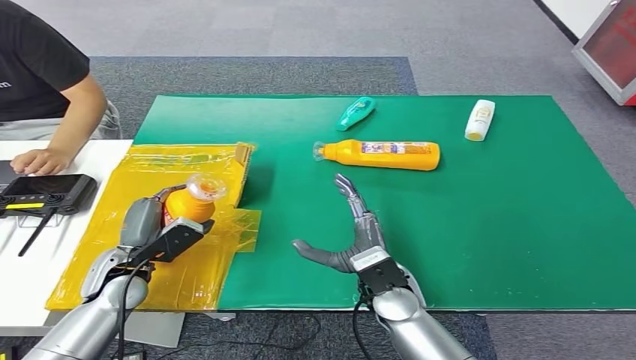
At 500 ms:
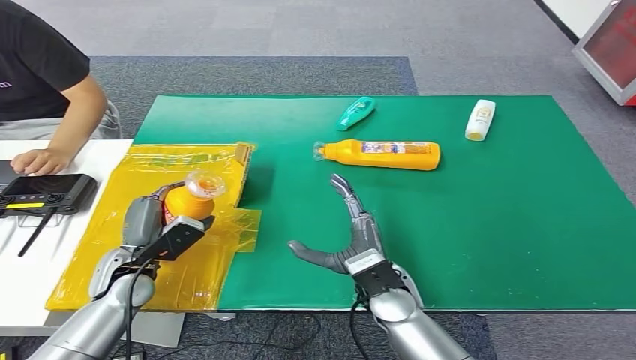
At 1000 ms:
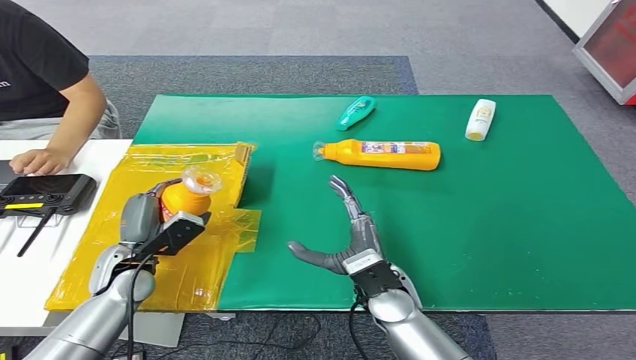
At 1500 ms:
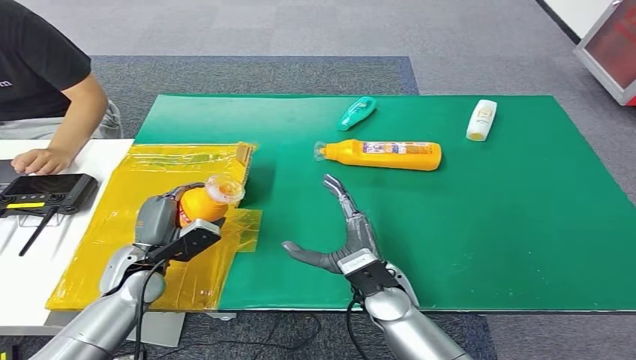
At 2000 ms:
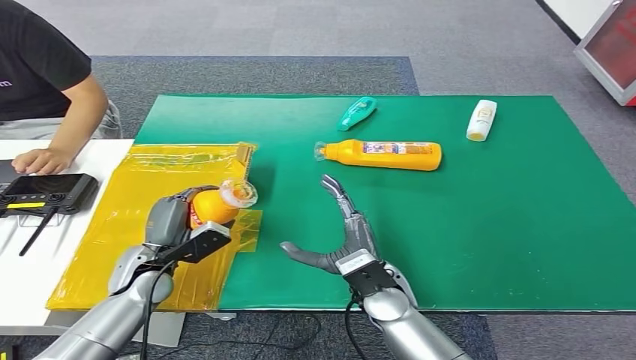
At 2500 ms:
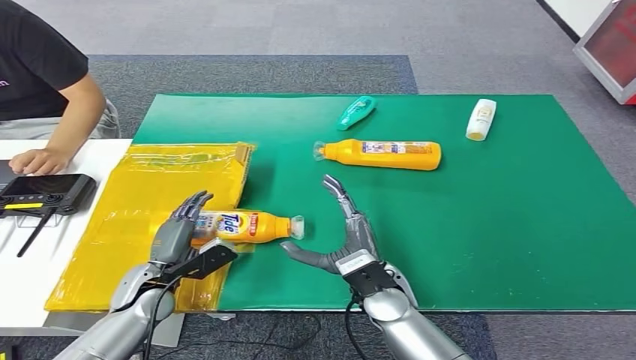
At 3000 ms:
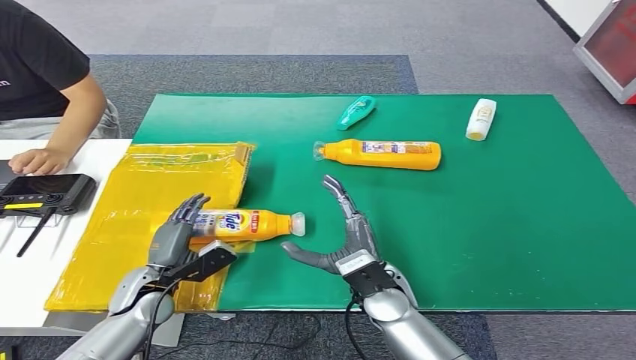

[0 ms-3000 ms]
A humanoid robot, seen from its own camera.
Step, 0 ms to 3000 ms: Turn the bottle to the front side.
0 ms to 1500 ms: The hands stay close to where they were, moving slightly.
1500 ms to 3000 ms: The left hand shifts by about 5 cm.
